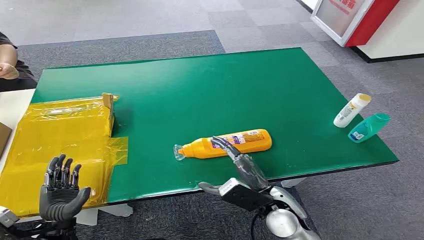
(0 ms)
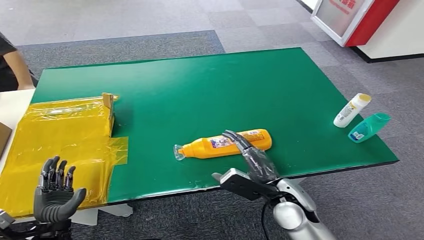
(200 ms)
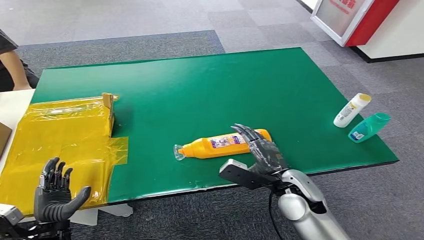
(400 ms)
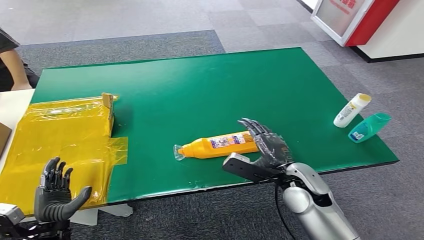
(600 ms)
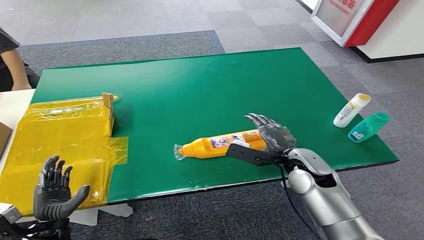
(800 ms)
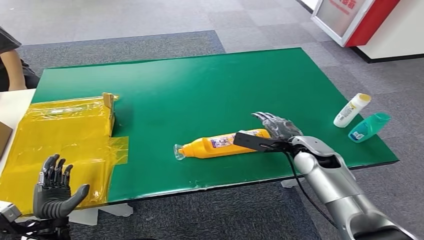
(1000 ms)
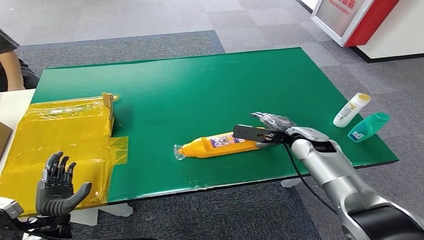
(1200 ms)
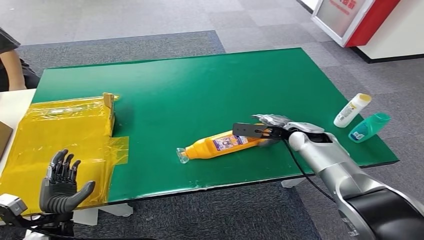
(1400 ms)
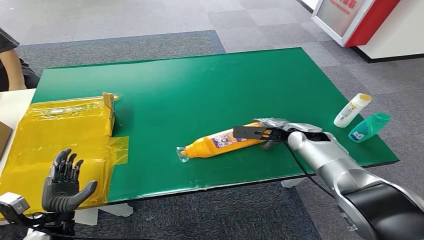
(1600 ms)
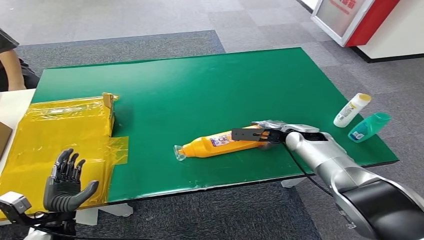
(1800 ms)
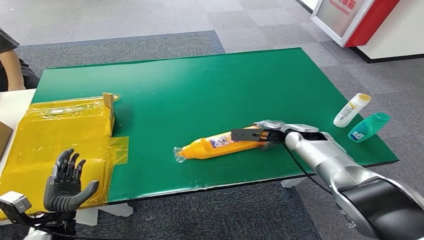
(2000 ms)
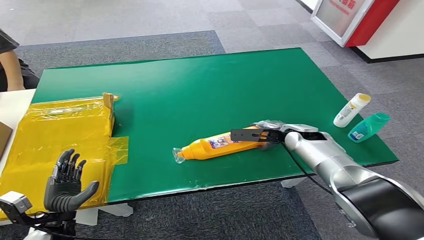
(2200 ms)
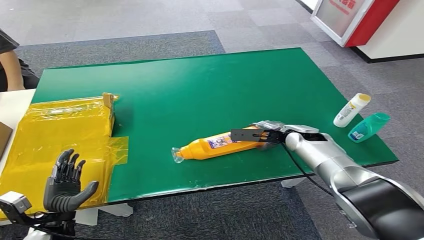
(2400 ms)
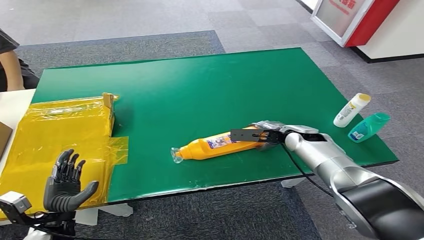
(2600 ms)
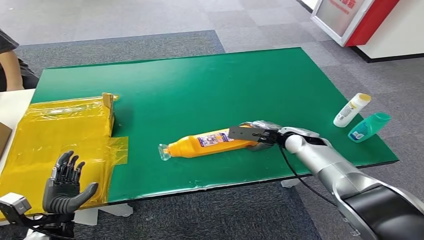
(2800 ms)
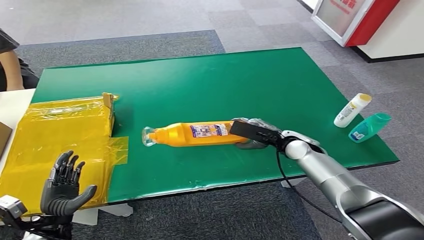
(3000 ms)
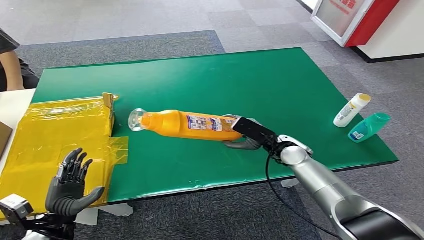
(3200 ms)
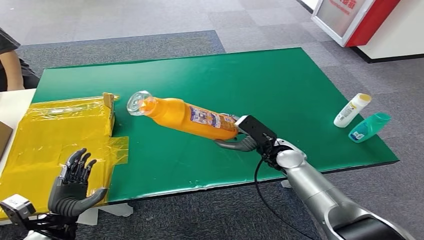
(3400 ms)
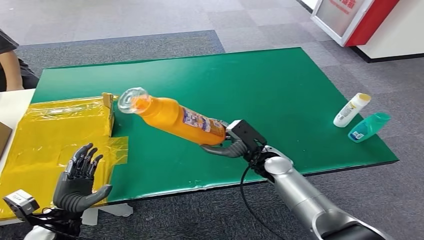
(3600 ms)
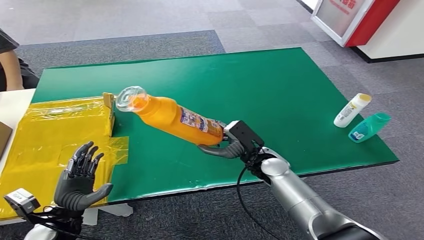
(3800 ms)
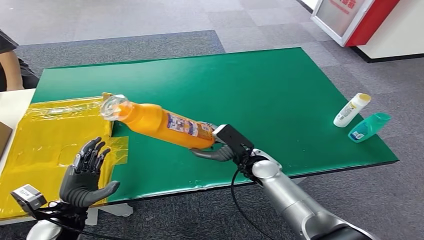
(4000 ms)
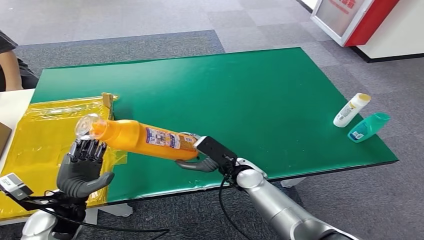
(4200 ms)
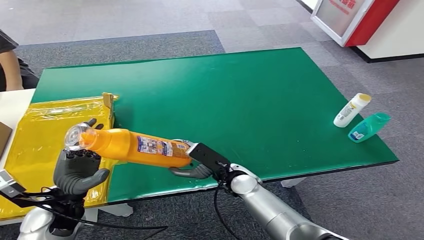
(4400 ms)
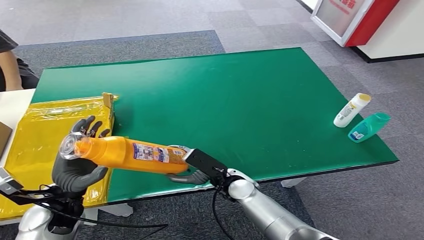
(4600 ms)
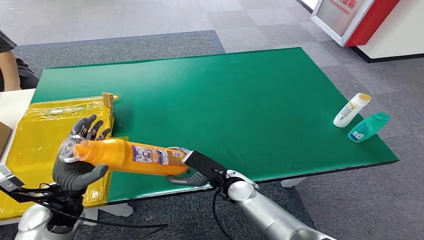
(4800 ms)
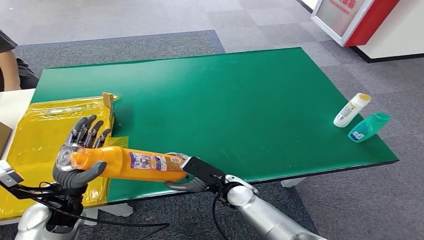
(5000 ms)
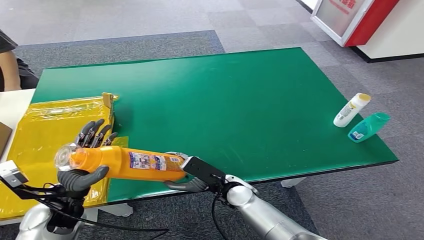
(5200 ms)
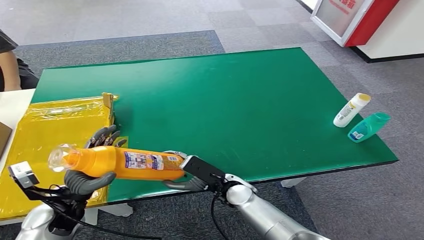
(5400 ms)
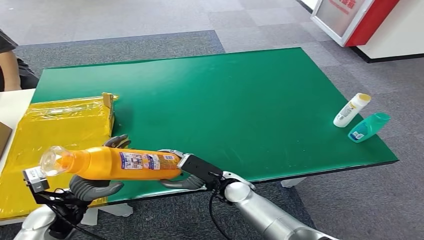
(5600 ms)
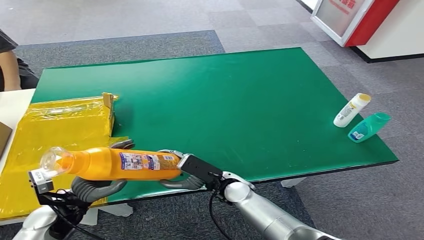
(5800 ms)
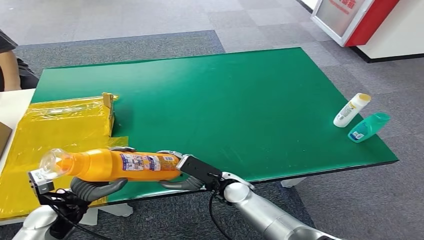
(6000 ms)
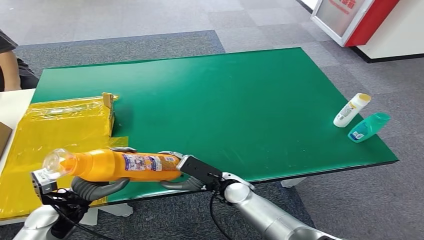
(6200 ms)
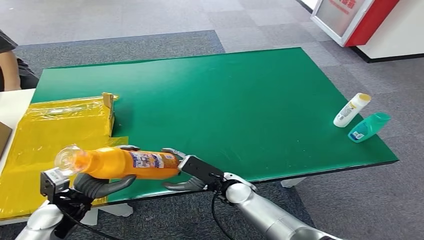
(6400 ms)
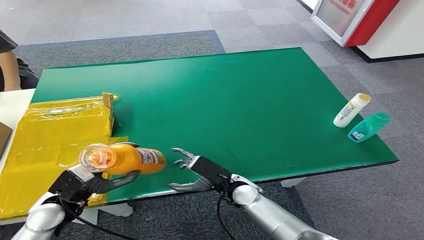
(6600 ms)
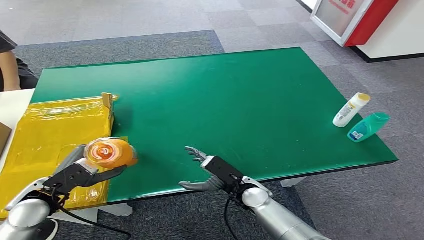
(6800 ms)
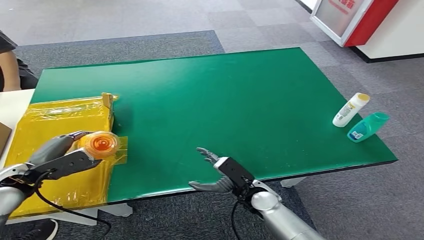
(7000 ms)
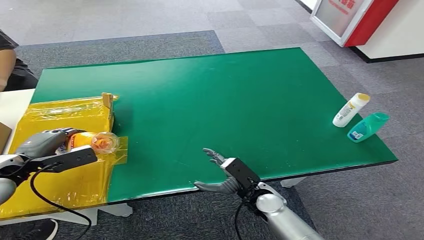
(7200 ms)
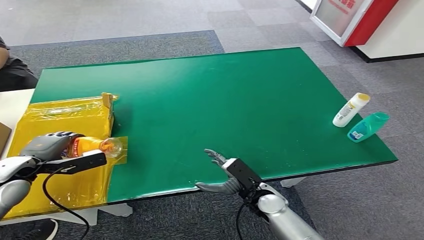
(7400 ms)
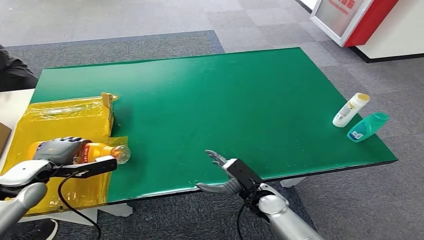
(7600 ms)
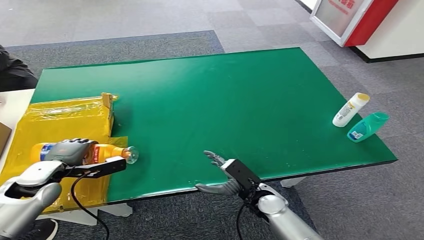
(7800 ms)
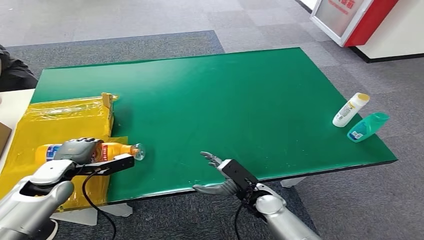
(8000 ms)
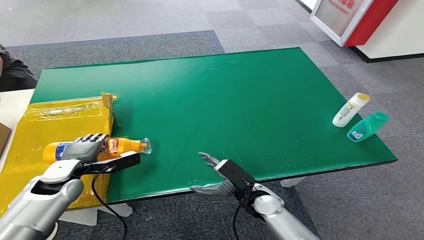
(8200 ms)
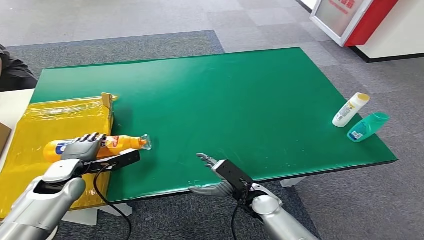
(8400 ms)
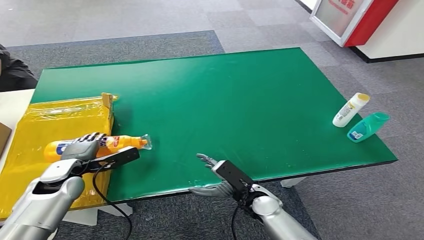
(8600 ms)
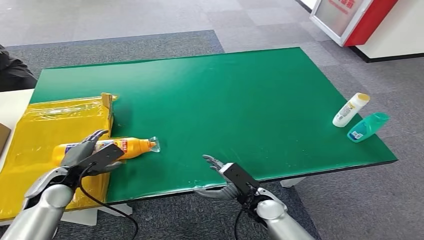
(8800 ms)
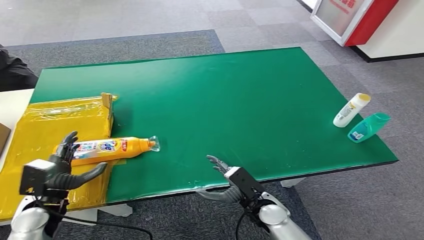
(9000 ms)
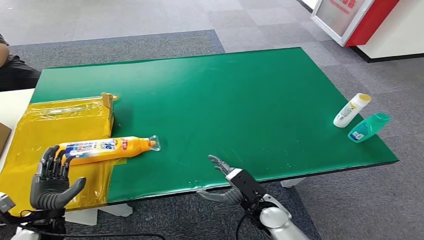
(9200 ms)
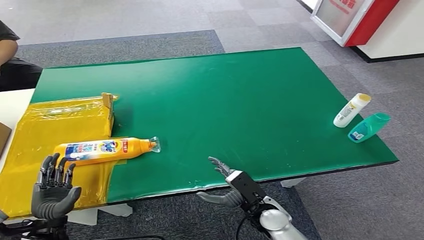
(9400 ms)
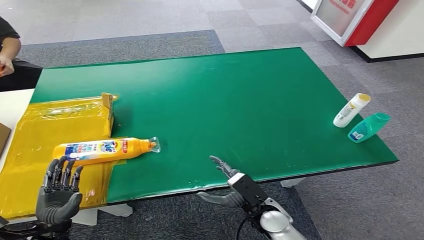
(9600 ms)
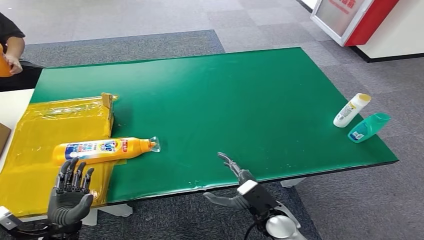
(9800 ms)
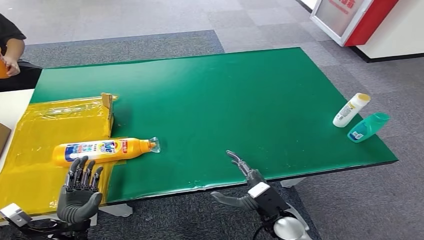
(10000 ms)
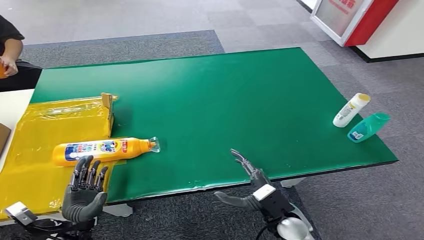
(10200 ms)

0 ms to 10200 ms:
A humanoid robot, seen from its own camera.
Step, 0 ms to 3800 ms: Pick up the bottle from the table.
Step, 4200 ms to 10000 ms: Turn the bottle to the front side.
4400 ms to 5800 ms: The hands stay close to where they were, moving slightly.
5800 ms to 7200 ms: The left hand travels upward, to the left and forward by about 15 cm. The right hand is displaced to the right by some 5 cm.
7200 ms to 8800 ms: The left hand goes approximately 10 cm downward and to the right.
8800 ms to 10200 ms: The left hand goes approximately 15 cm backward and downward. Meanwhile the right hand travels backward by approximately 5 cm.
